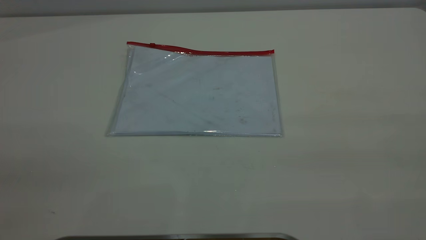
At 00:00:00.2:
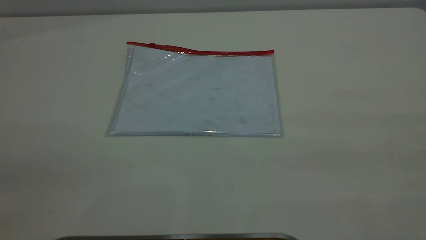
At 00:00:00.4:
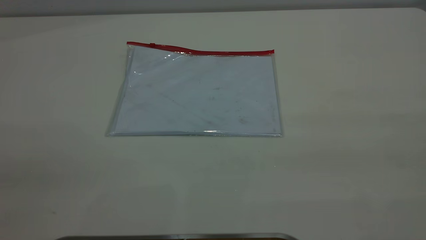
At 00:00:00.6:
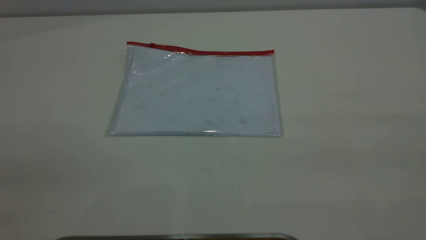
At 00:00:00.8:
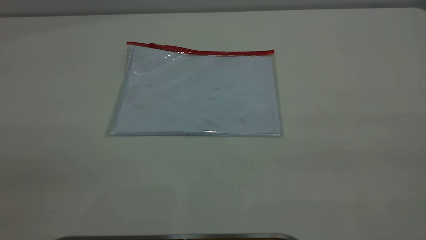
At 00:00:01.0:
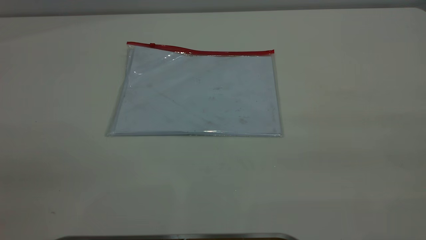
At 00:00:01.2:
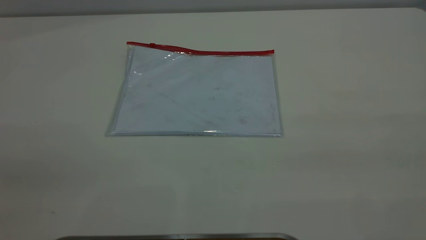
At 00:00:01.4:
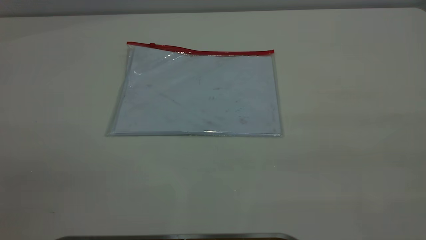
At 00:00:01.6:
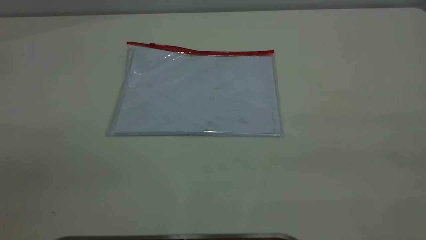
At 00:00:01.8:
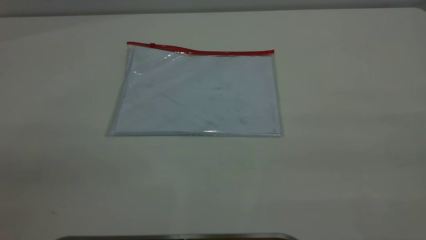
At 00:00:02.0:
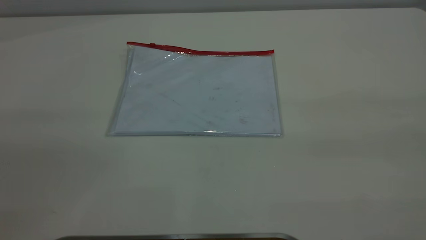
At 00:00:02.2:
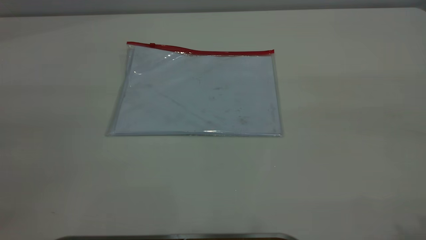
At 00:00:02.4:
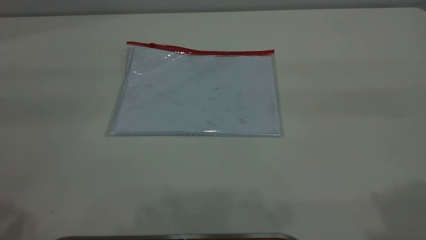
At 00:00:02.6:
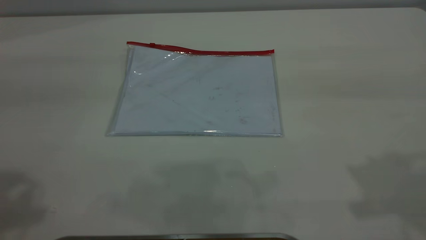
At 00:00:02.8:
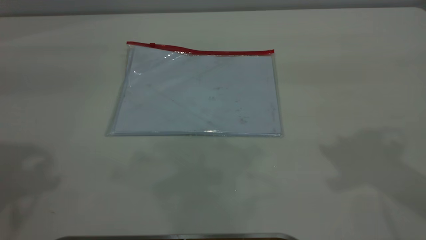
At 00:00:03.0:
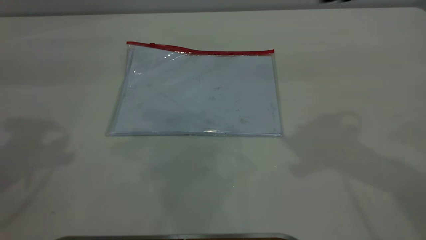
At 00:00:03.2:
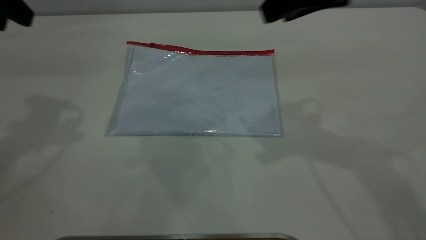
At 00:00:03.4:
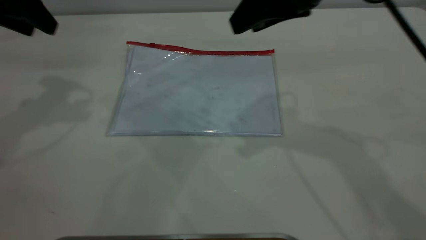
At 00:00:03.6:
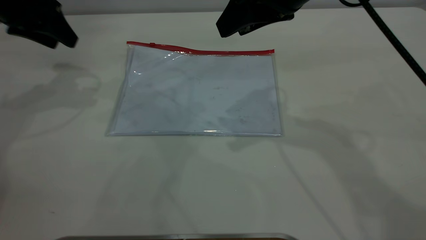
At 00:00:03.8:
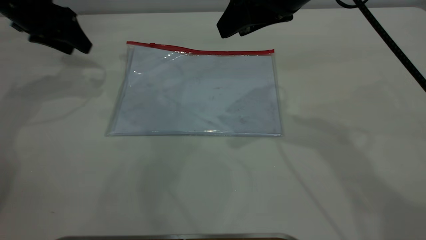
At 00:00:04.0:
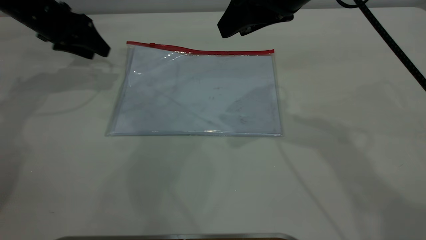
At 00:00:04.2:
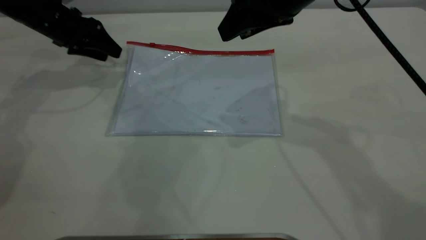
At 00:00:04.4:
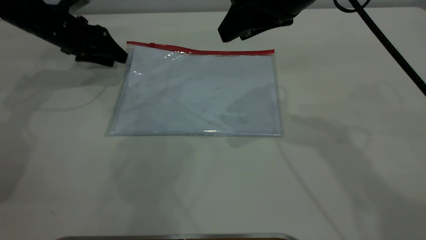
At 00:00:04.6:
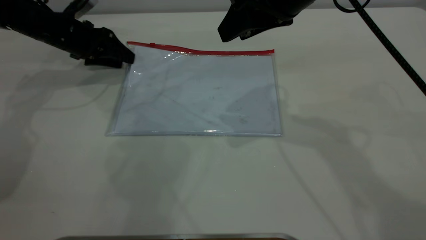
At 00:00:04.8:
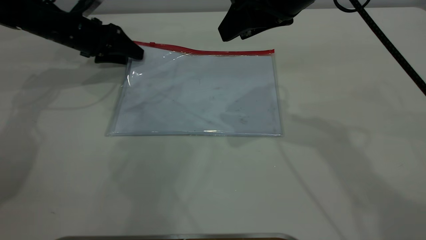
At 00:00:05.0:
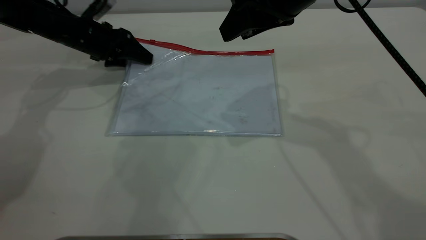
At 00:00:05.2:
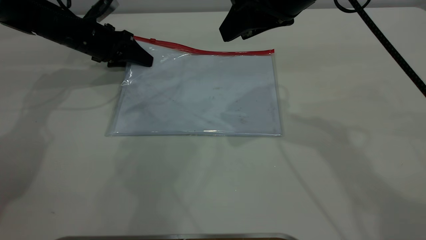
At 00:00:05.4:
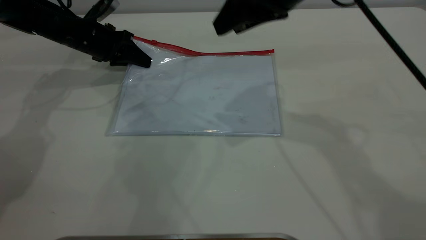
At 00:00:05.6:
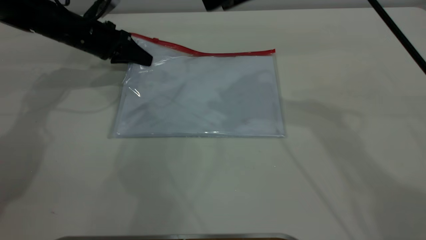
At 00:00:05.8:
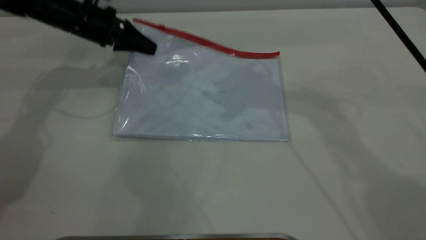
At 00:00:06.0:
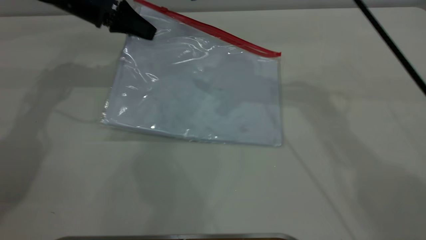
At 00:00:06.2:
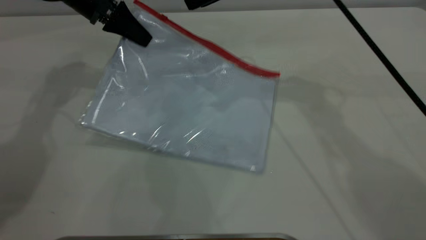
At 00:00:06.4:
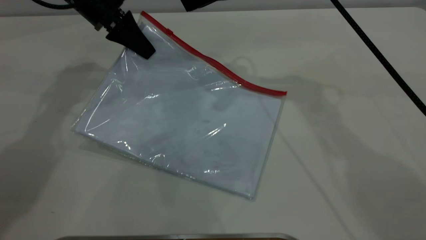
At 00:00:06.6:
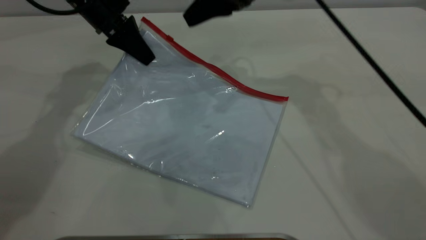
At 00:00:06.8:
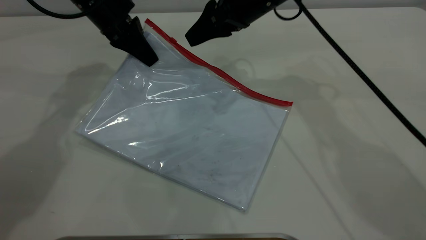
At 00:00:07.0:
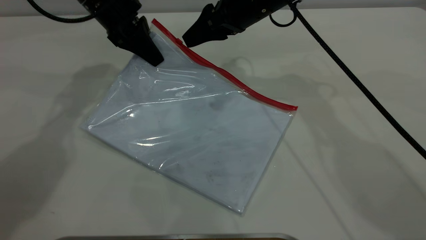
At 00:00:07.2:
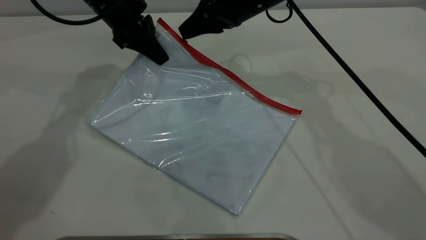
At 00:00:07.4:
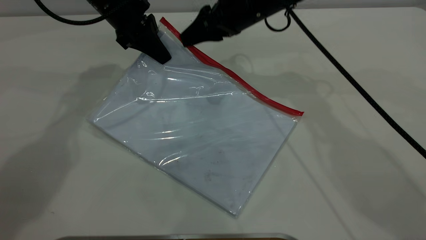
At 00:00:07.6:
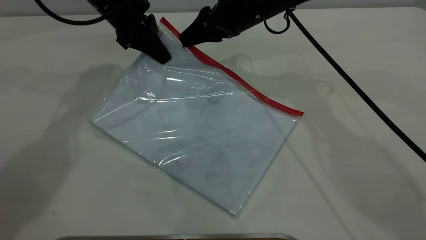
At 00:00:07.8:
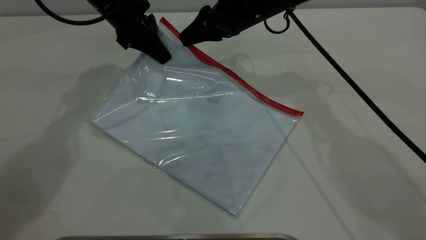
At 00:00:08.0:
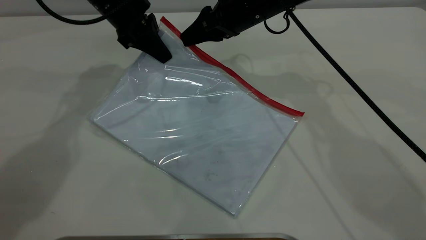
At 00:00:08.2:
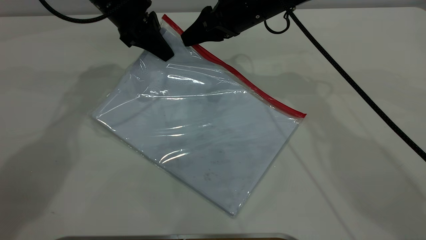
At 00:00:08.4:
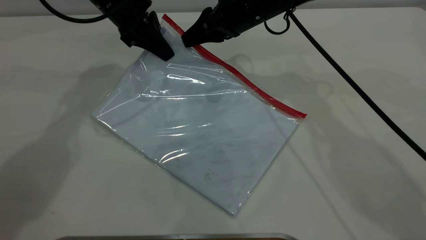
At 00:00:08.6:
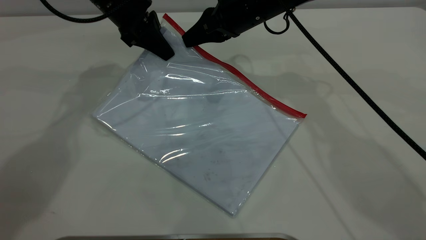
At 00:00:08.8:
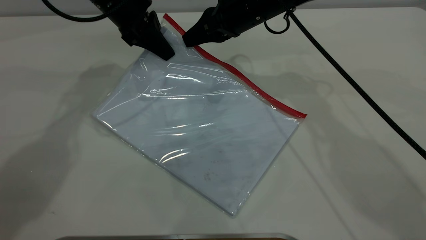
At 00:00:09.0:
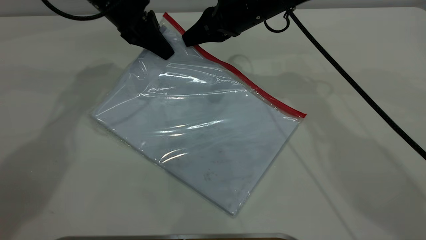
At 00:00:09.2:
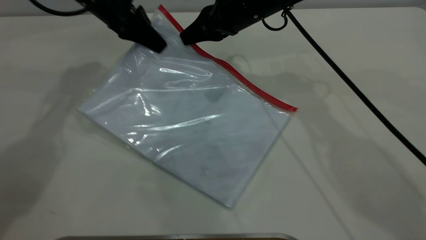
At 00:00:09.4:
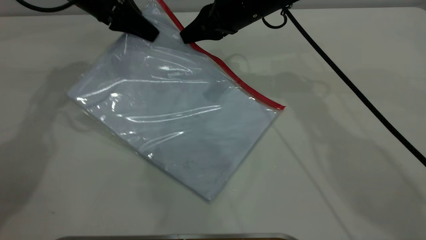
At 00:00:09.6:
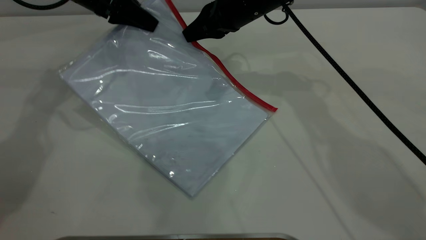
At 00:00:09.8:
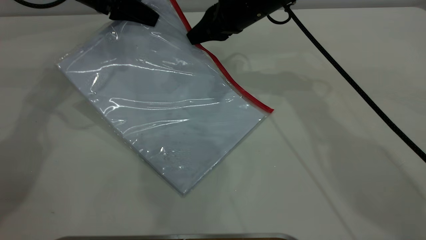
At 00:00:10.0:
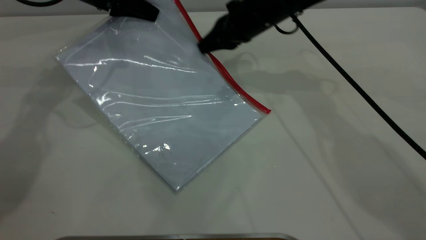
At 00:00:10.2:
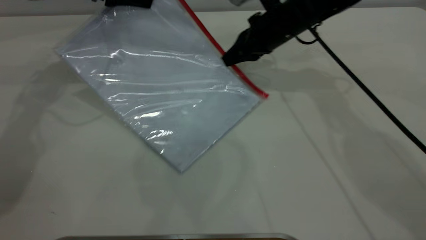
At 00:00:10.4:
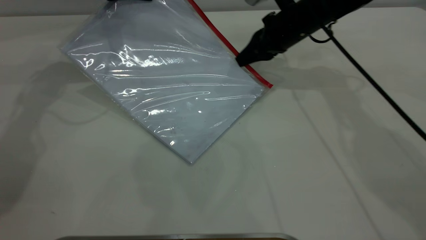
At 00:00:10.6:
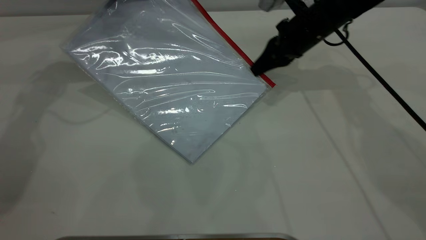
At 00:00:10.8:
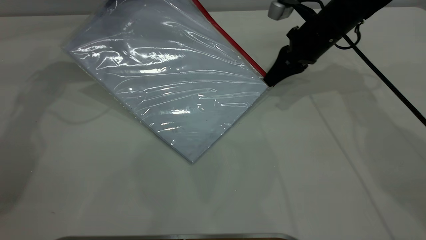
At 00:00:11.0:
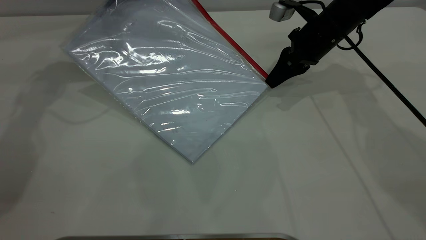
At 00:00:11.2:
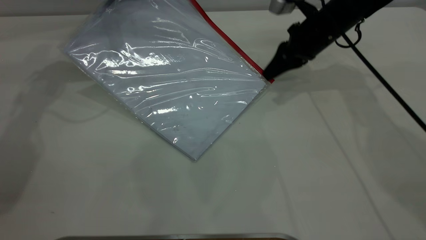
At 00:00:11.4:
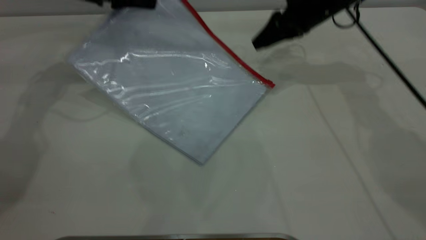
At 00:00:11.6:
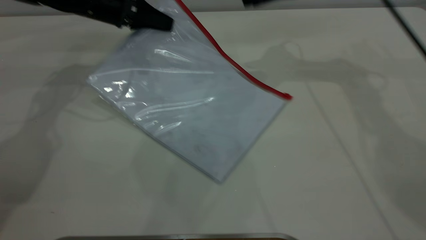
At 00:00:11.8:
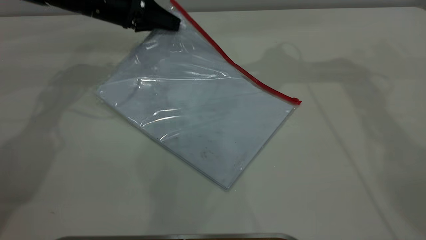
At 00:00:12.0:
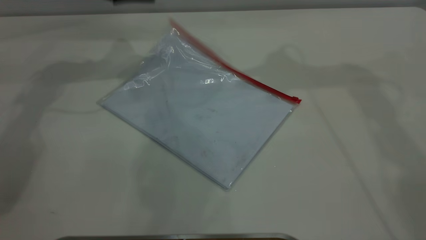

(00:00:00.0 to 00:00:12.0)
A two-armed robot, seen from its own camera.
Step, 00:00:00.0 - 00:00:05.6: Pick up the transparent plastic bag with the left gripper.
Step, 00:00:06.0 - 00:00:11.4: Pulling up the zipper on the transparent plastic bag with the right gripper to close it.
00:00:03.0 - 00:00:04.4: The right gripper travels to the left, downward and forward by some 10 cm. The left gripper heads downward and forward, covering some 30 cm.
00:00:04.4 - 00:00:06.0: The left gripper shifts approximately 10 cm to the right and upward, and closes its fingers; the right gripper travels forward by some 10 cm.
00:00:06.0 - 00:00:07.6: The right gripper heads downward, covering approximately 10 cm. The left gripper heads to the right, covering about 5 cm.
00:00:07.6 - 00:00:09.0: The right gripper closes.
00:00:09.0 - 00:00:10.4: The right gripper travels to the right by roughly 10 cm. Meanwhile the left gripper shifts roughly 5 cm to the left.
00:00:10.4 - 00:00:12.0: The left gripper moves approximately 5 cm downward and comes back, and opens. Meanwhile the right gripper is displaced upward by approximately 25 cm, and opens its fingers.
